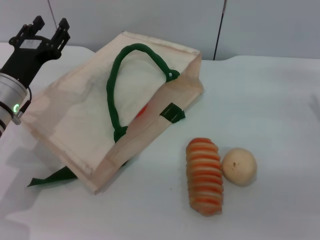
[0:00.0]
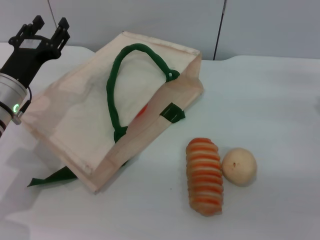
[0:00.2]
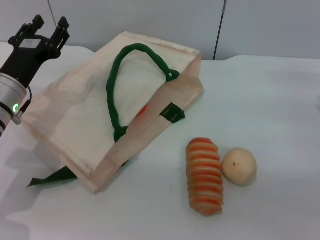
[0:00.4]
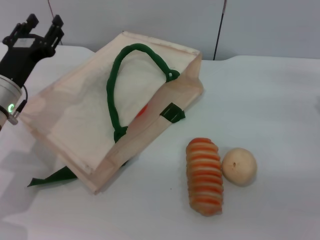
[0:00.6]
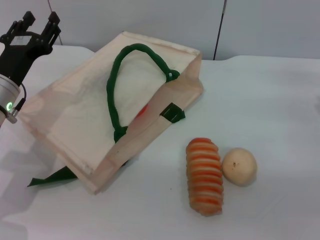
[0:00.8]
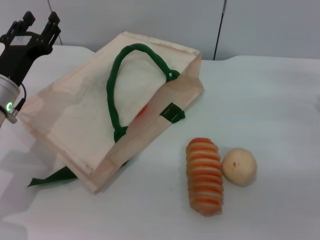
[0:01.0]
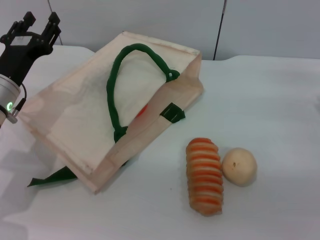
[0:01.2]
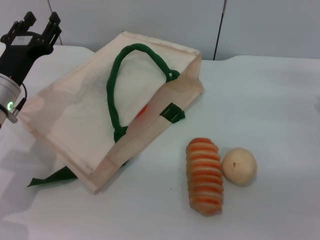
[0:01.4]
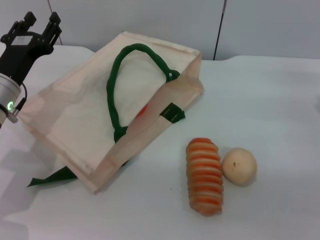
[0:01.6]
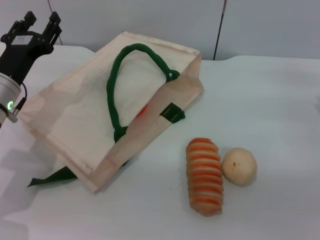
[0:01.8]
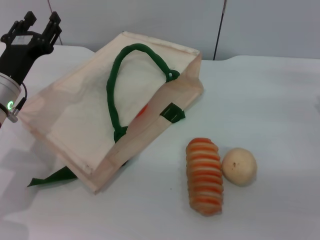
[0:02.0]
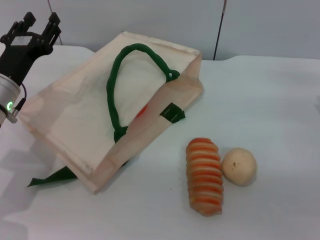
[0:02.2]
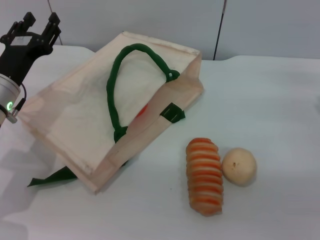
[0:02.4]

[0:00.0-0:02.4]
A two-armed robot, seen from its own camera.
Task of the whole recording: pick up the orange and peach from the table and place it in the white handbag.
0:00.0 to 0:02.4: Both grippers stay put.

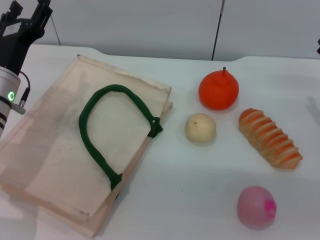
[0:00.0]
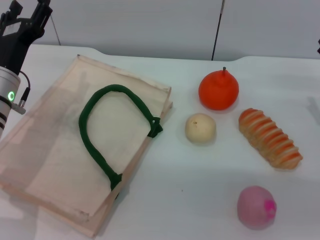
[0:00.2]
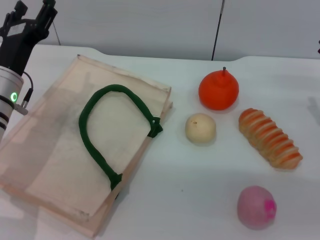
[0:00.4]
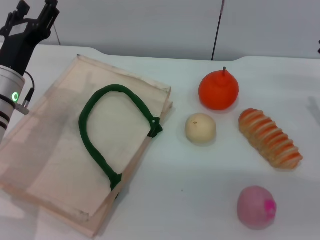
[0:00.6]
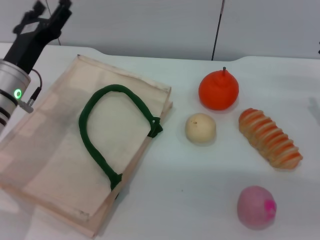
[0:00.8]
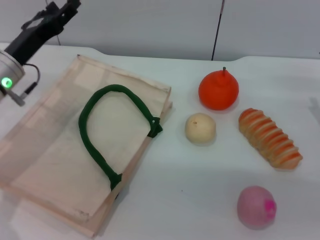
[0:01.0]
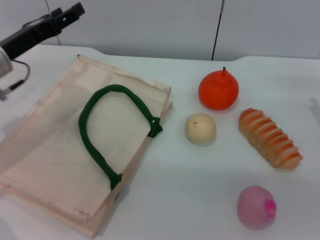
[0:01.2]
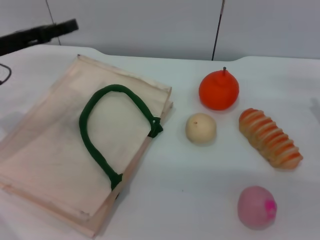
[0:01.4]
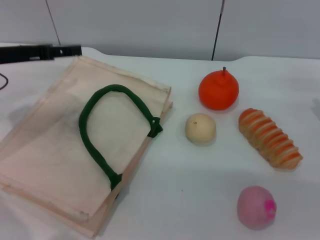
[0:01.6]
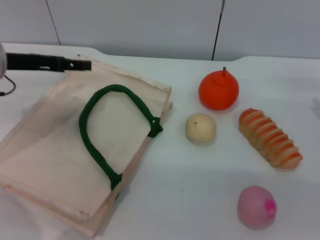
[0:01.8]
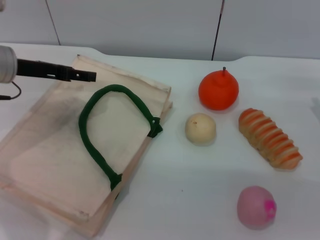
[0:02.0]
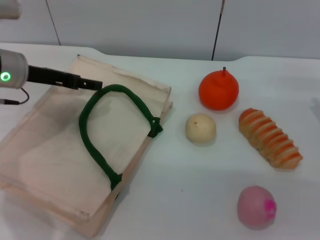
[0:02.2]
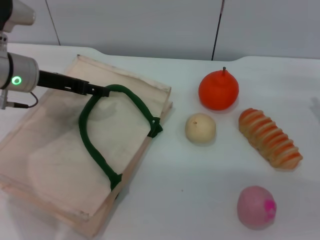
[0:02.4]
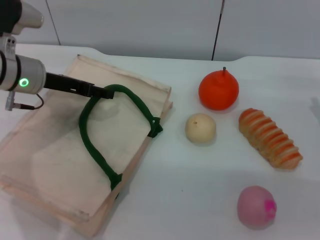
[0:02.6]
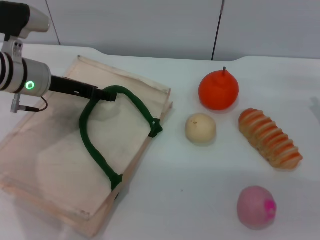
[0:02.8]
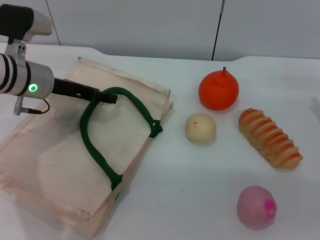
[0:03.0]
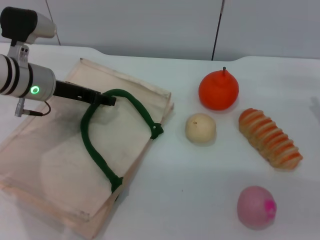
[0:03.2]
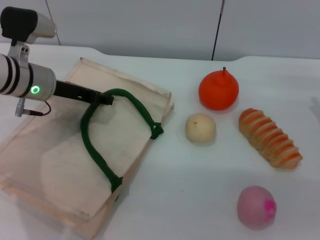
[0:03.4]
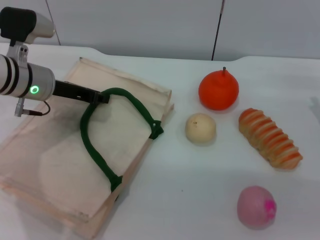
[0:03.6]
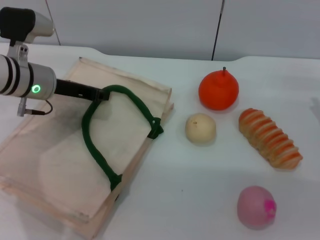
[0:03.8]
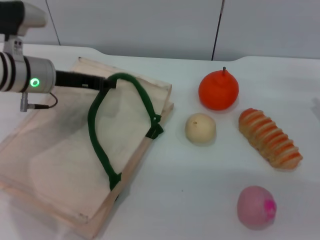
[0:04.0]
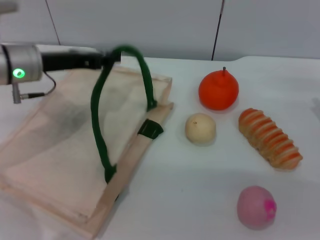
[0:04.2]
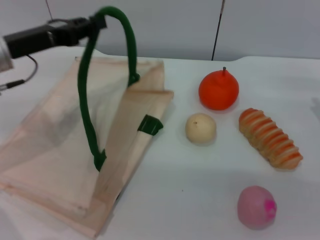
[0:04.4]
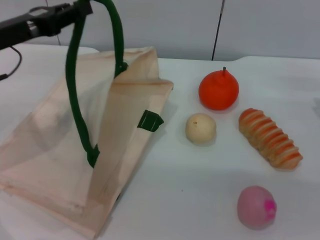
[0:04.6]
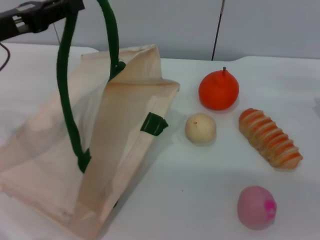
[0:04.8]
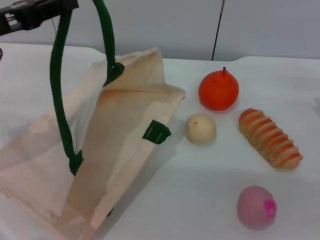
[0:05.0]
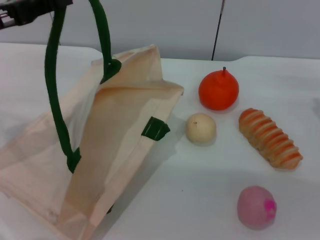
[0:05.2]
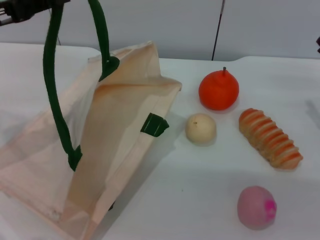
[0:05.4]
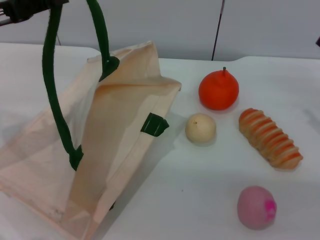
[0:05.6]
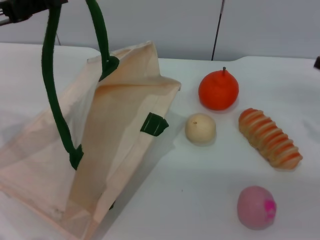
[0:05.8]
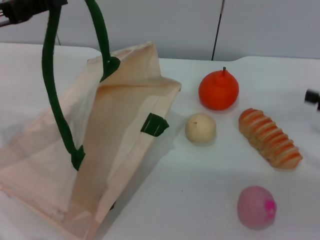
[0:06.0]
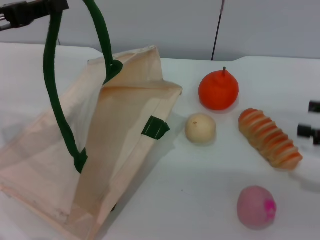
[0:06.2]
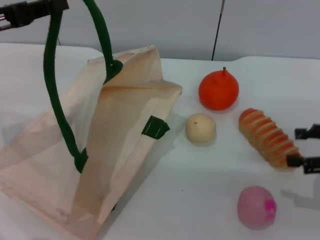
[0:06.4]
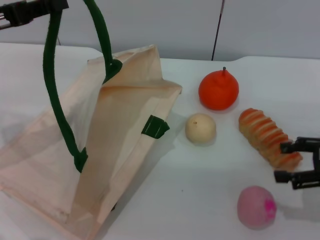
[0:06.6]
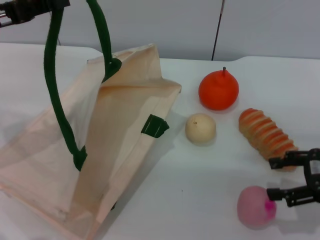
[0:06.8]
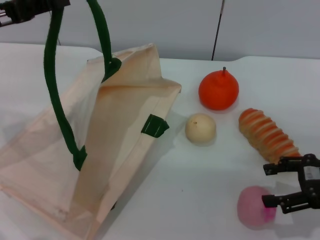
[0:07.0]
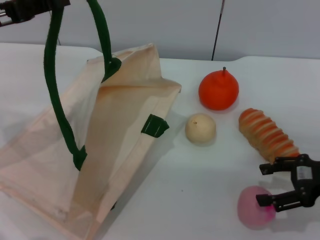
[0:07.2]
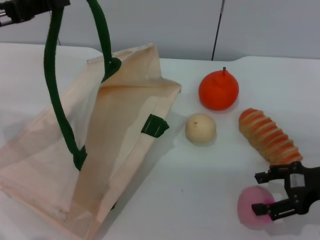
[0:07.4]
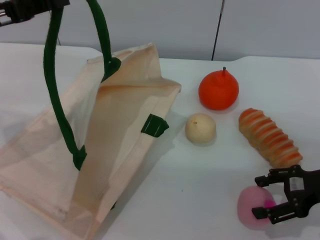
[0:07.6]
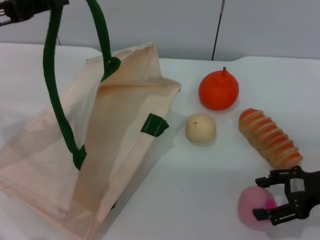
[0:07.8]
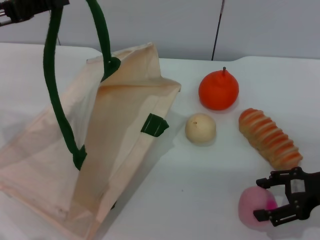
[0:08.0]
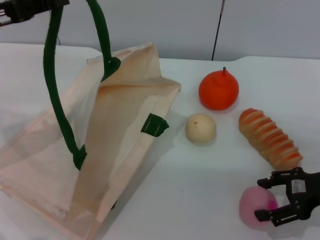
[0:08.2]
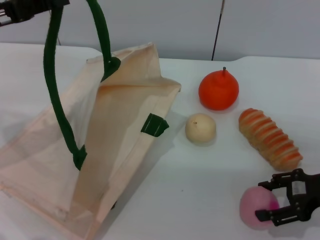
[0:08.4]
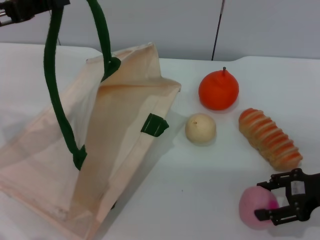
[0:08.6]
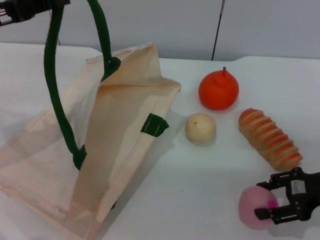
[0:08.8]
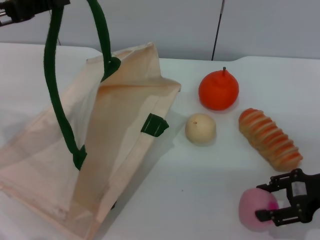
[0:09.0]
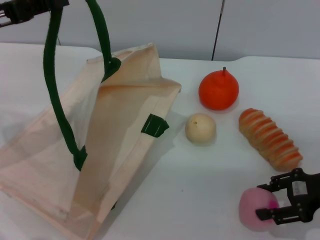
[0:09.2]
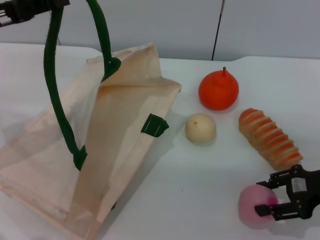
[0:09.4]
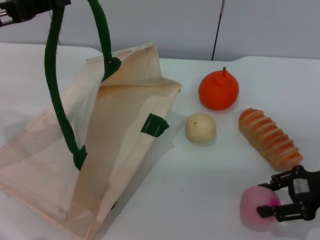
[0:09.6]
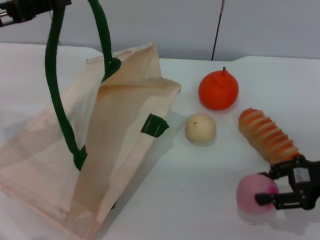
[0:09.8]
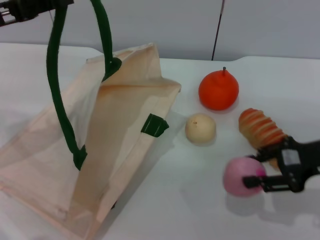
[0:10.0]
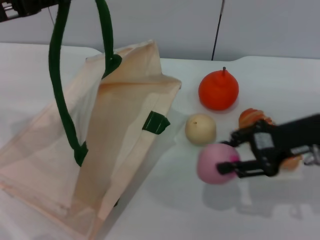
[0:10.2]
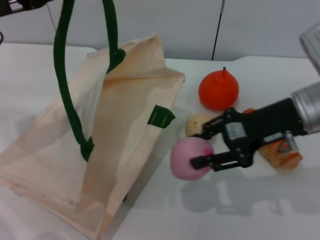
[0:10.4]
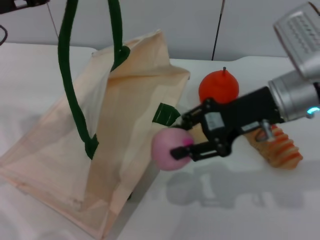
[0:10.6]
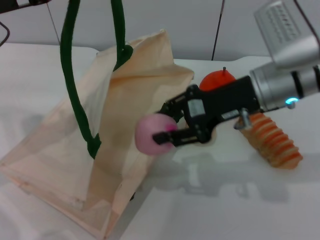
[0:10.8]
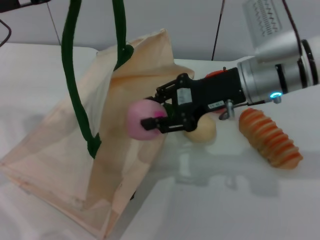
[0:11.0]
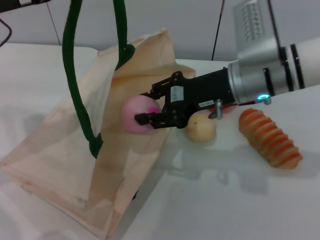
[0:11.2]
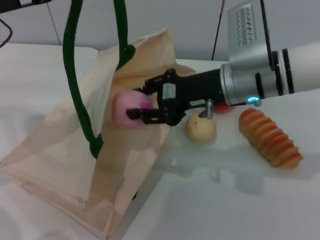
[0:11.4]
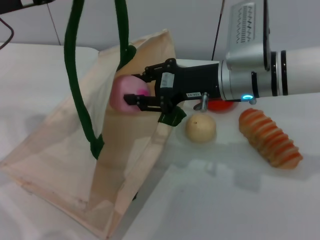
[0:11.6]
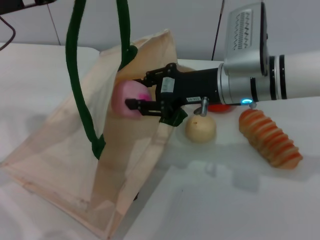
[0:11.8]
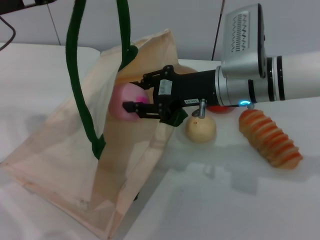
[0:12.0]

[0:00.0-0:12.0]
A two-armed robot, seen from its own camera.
Task of the whole recording: pick up the peach from the table and place it in the white handbag.
Step, 0:00.0 to 0:05.6: Lift the woven bag with the left gripper to open it.
Step, 0:05.8 to 0:10.0: Pick up the peach with the right gripper.
0:00.0 to 0:01.6: The left gripper travels upward and to the left by approximately 10 cm.
0:01.6 to 0:03.0: The left gripper heads to the right, covering roughly 5 cm.
0:03.0 to 0:04.4: The left gripper shifts by about 5 cm, and closes up.
0:04.4 to 0:06.0: The right gripper shifts about 10 cm upward and to the right. The left gripper ends up some 5 cm from where it was.
0:06.0 to 0:07.6: The right gripper shifts some 10 cm to the left.
0:07.6 to 0:09.0: The right gripper closes up.
0:09.0 to 0:10.4: The right gripper heads to the left, upward and forward, covering some 15 cm, and closes.
0:10.4 to 0:12.0: The right gripper travels to the left by about 10 cm.

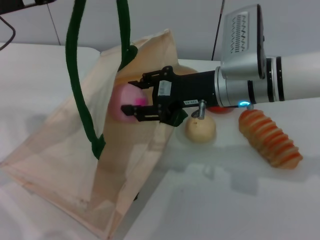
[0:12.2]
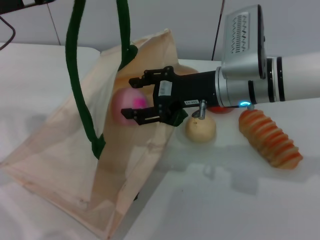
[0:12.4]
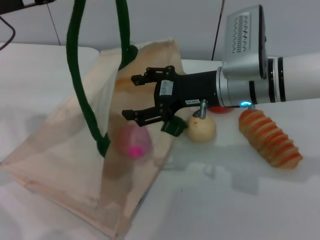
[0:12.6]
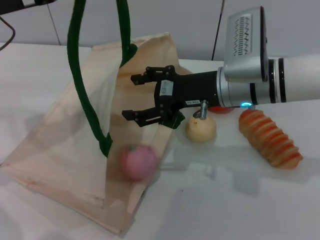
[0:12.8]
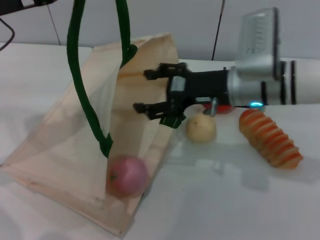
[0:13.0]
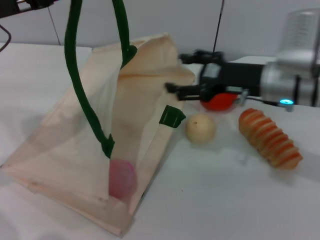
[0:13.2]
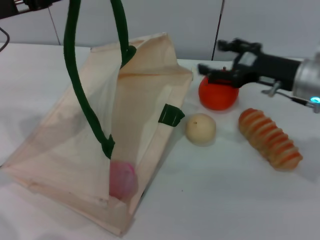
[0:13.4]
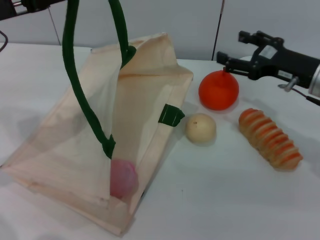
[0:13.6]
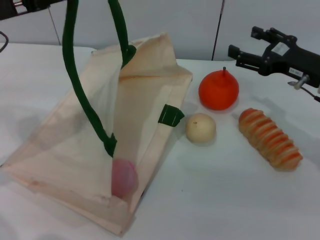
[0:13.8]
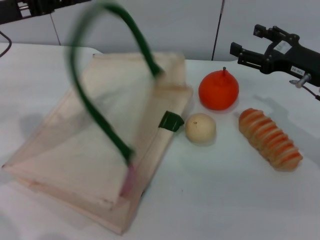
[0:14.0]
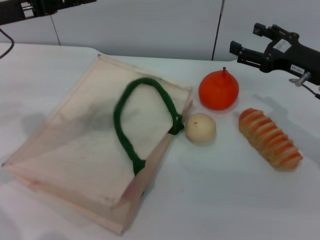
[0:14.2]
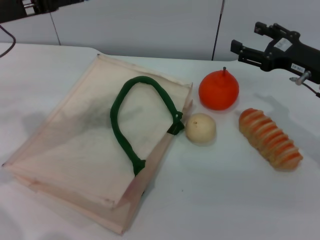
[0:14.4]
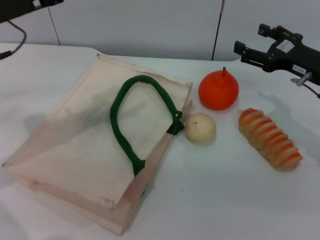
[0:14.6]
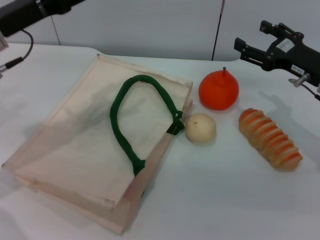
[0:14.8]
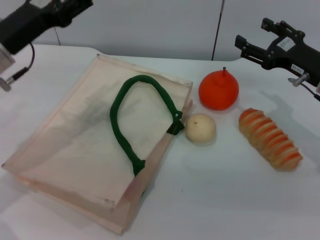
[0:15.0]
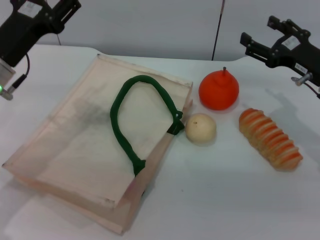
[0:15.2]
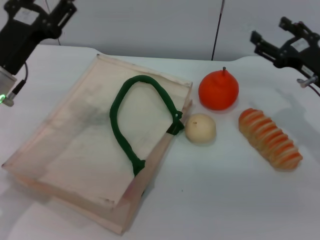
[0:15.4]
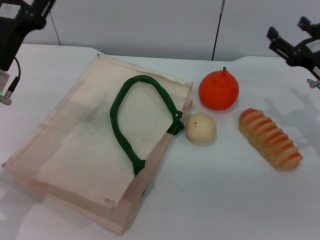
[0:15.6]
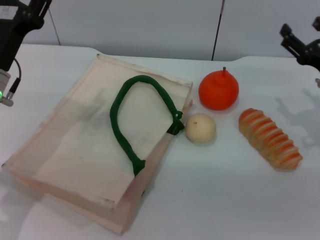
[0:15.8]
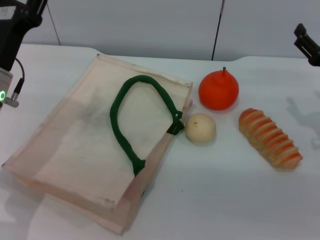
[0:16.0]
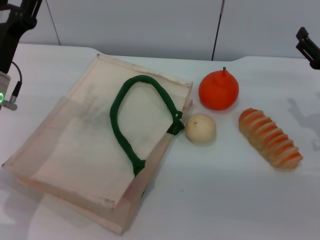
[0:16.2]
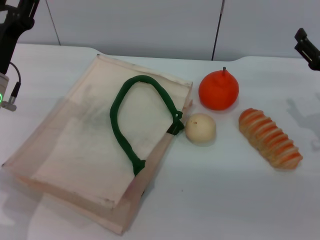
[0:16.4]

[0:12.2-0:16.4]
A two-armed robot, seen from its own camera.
Task of the whole recording: pick up the peach from the table and place it in the white handbag.
Step, 0:13.8 to 0:14.6: Lower the woven bag with the left gripper to close it.
0:12.2 to 0:13.6: The right gripper shifts about 15 cm to the right, and opens its fingers.
0:13.6 to 0:15.0: The left gripper heads downward, covering about 5 cm, and opens.
0:15.0 to 0:16.4: The right gripper moves approximately 5 cm, while the left gripper moves downward, some 5 cm.
